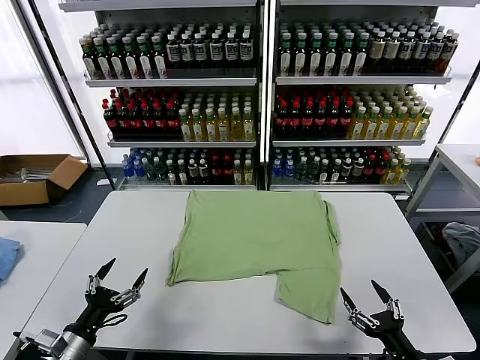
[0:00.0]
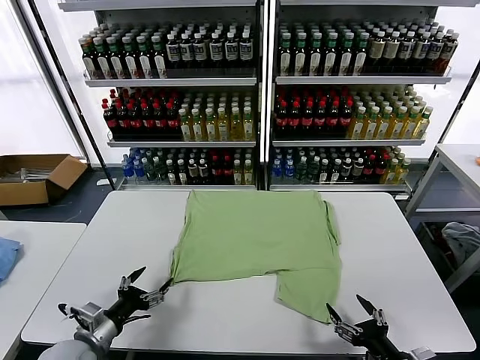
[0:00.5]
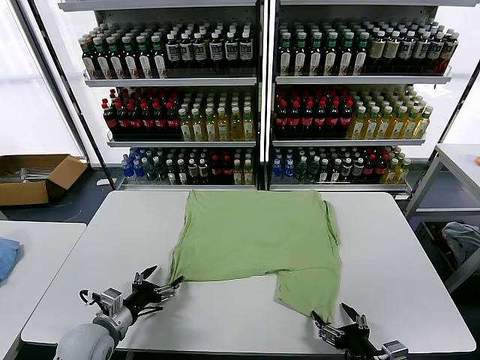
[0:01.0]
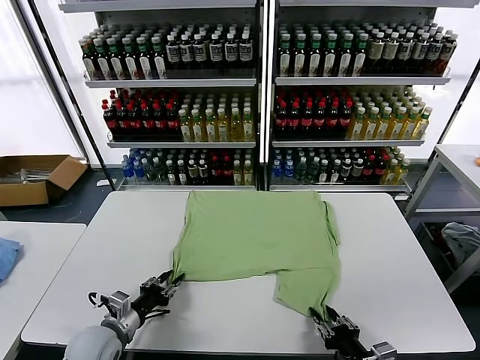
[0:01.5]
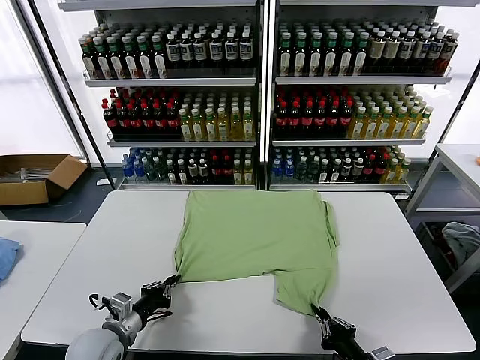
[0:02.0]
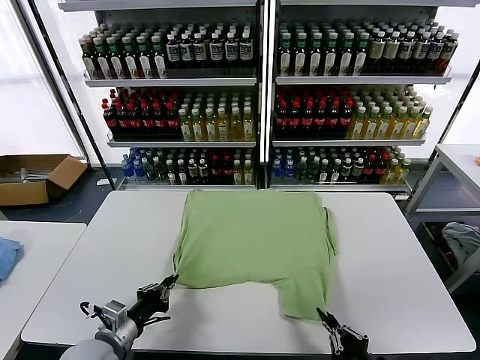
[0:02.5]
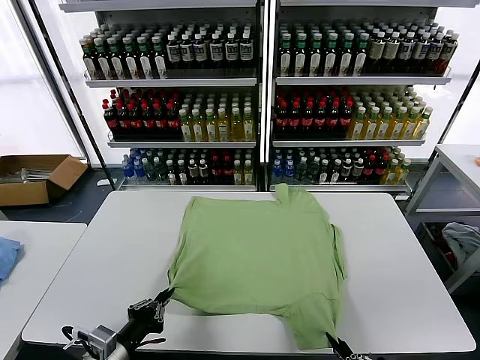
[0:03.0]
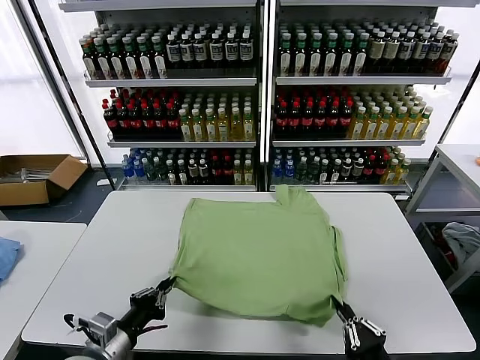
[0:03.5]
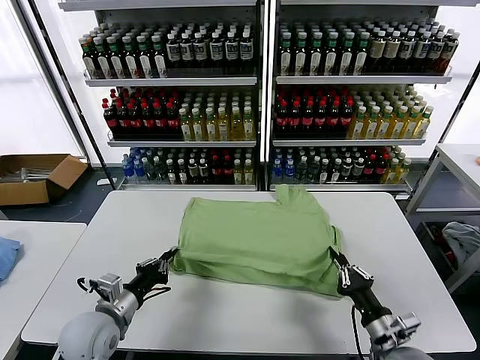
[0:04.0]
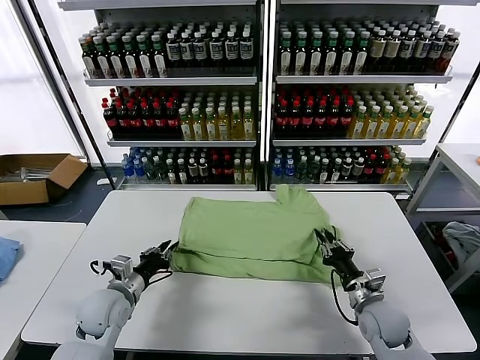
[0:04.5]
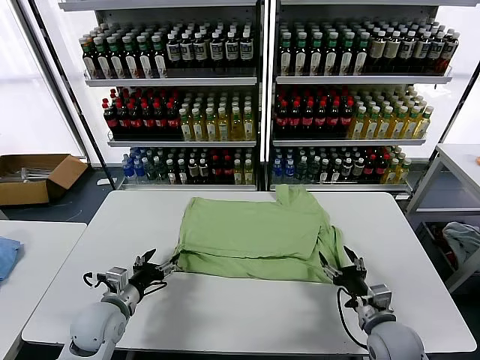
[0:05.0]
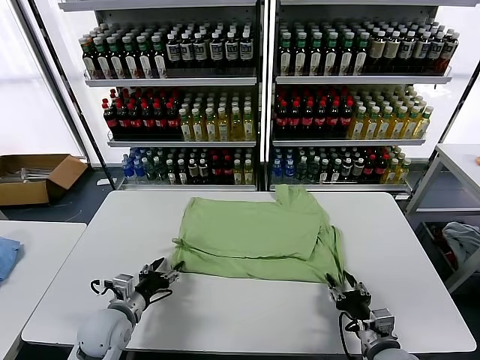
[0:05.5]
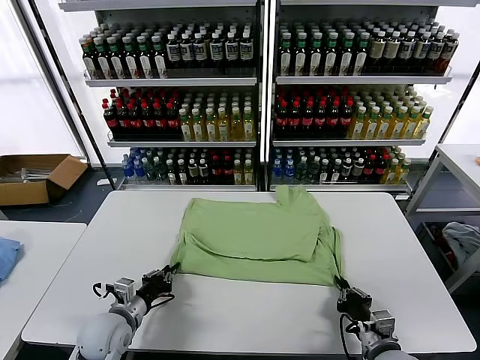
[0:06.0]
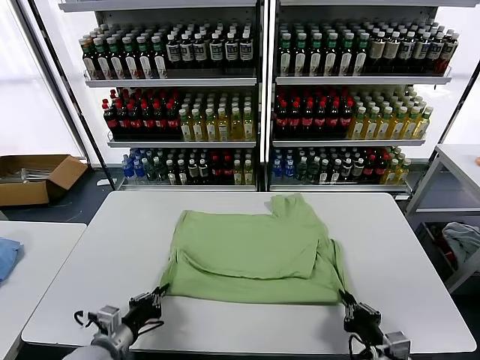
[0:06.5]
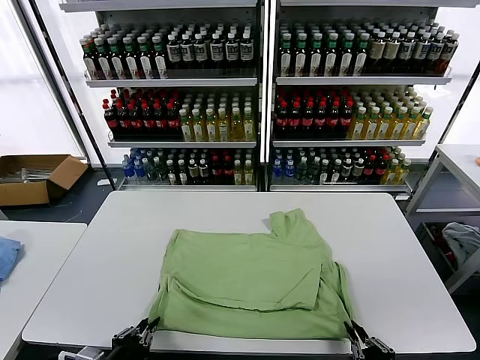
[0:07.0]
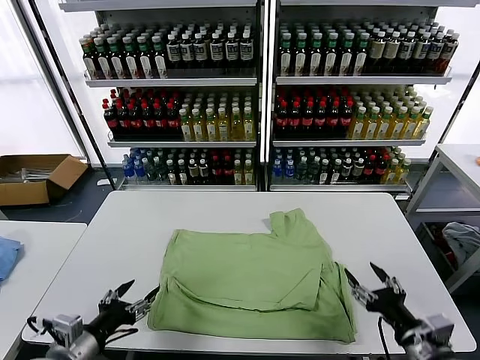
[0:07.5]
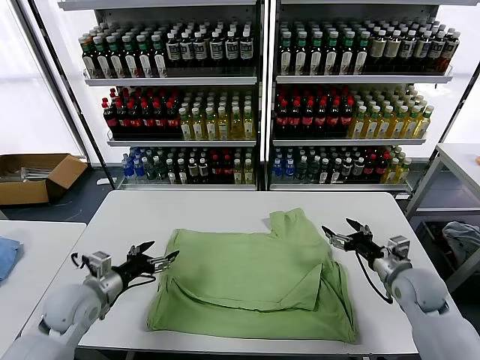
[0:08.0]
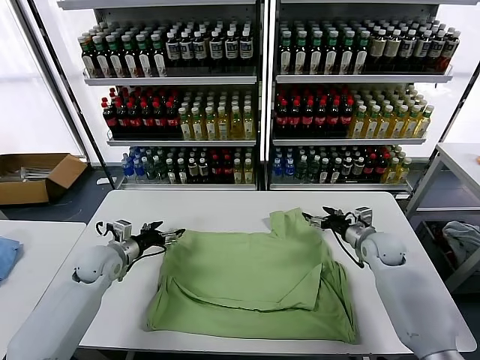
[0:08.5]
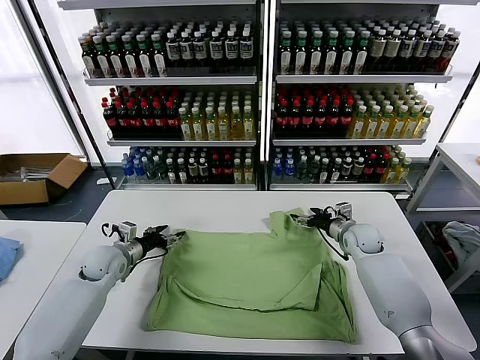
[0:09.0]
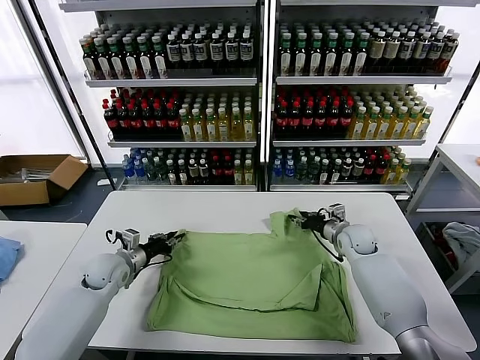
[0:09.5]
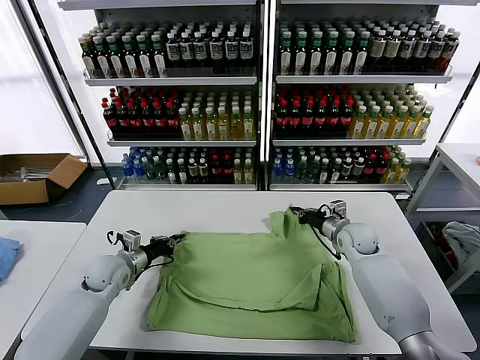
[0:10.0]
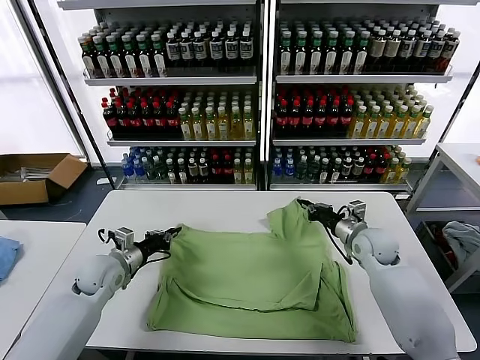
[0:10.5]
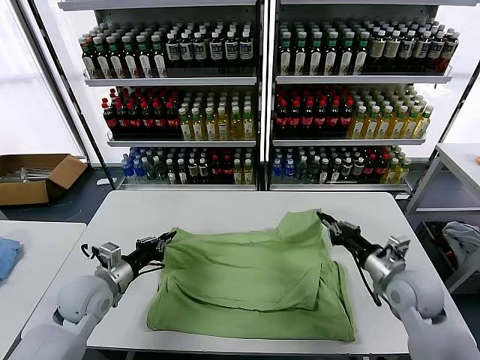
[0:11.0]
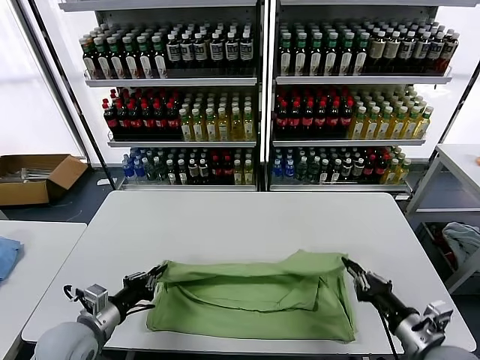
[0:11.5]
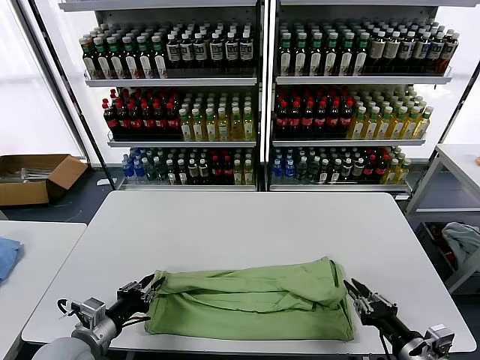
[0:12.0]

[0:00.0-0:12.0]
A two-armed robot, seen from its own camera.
Task of the whole recording: fold and organize the clothes.
Step, 0:00.0 to 0:01.5: use both grippers simultaneously to clamp the lower edge of the clothing fabric.
Step, 0:02.0 to 0:04.5: use both grippers to drag the lower edge of the fabric forward and fold it over the upper edge.
Step, 0:05.0 to 0:07.0: Drag the clothes downward with both gripper.
Step, 0:07.5 to 0:09.5: use both grippers simultaneously to clamp the upper edge of the clothing fabric.
0:02.0 to 0:04.0: The left gripper travels backward and back again, approximately 10 cm each way. The right gripper travels forward by about 10 cm.
0:04.0 to 0:06.0: The left gripper is displaced downward by about 5 cm, and opens, then closes again, while the right gripper opens and closes again.
0:06.0 to 0:08.0: The right gripper is displaced forward and to the right by roughly 20 cm, and opens; the left gripper moves upward and to the left, about 10 cm, goes backward and returns, approximately 15 cm each way, and opens.
0:08.0 to 0:10.0: The left gripper shifts approximately 10 cm forward and downward, and closes, while the right gripper moves forward and to the left, roughly 15 cm, and closes up.
0:10.0 to 0:12.0: The left gripper moves backward, about 20 cm, while the right gripper is displaced backward by roughly 35 cm.

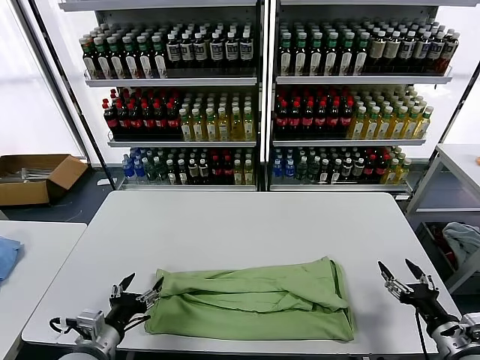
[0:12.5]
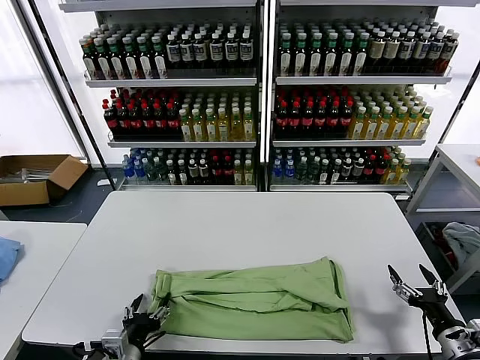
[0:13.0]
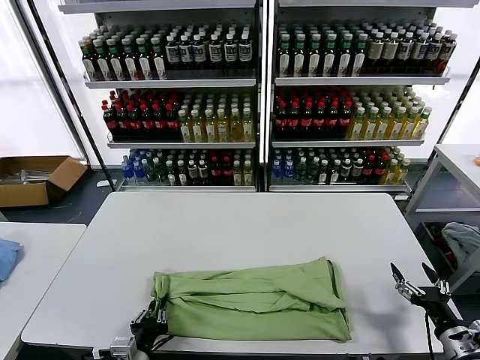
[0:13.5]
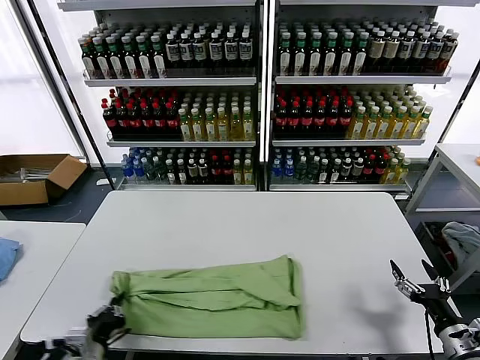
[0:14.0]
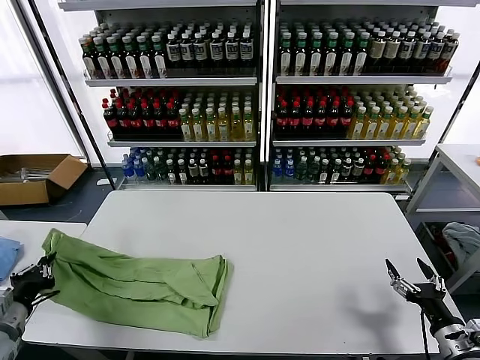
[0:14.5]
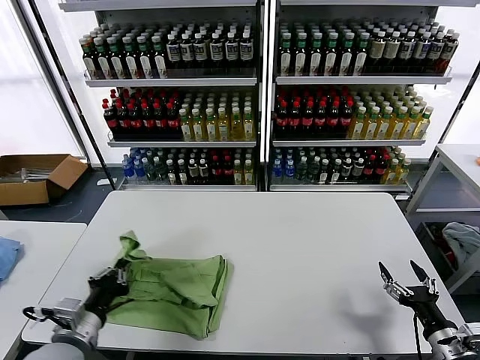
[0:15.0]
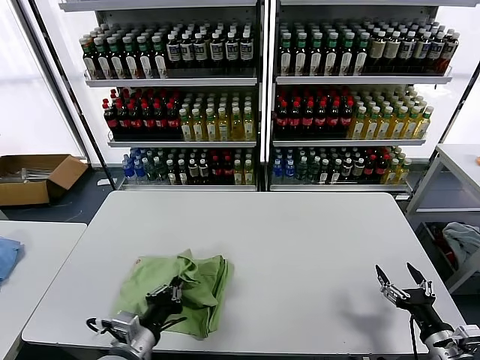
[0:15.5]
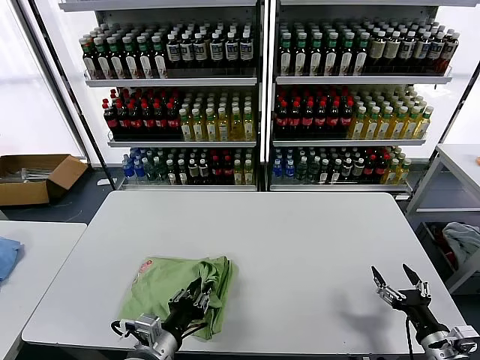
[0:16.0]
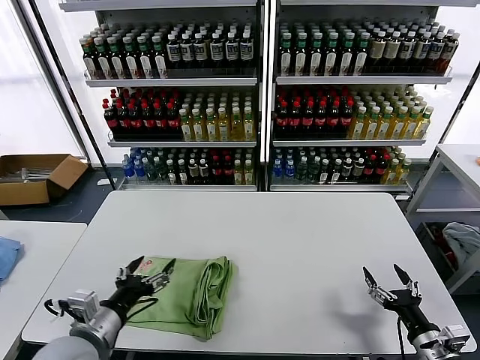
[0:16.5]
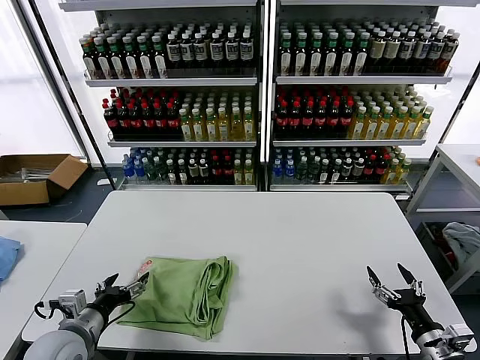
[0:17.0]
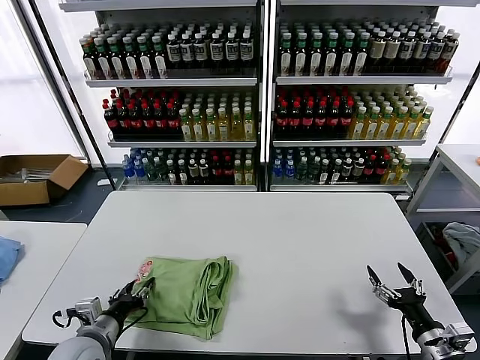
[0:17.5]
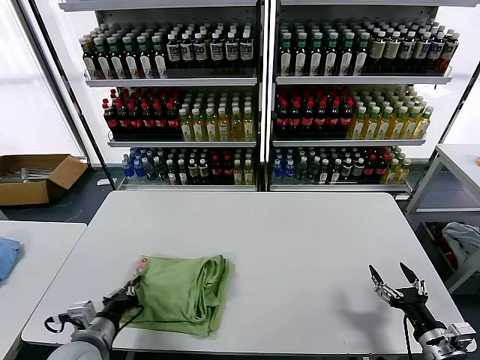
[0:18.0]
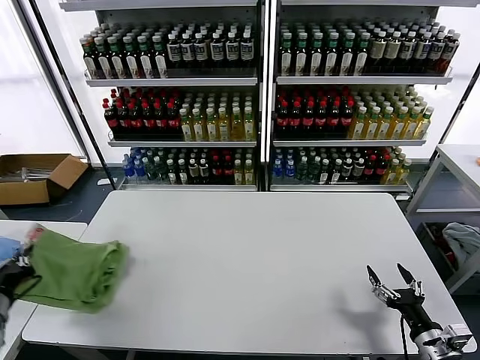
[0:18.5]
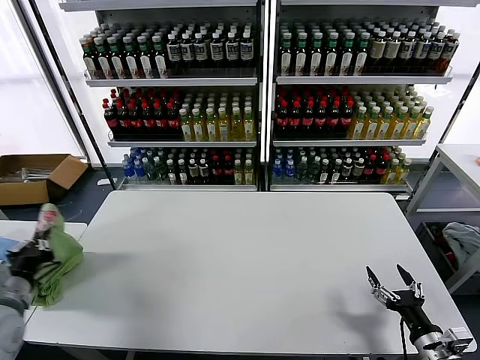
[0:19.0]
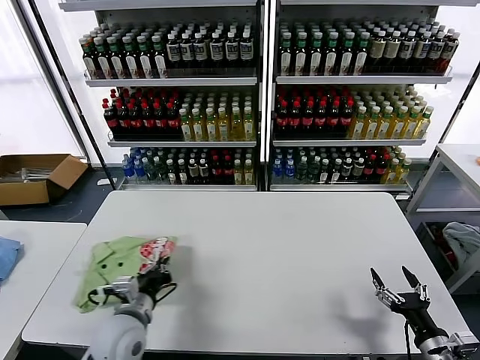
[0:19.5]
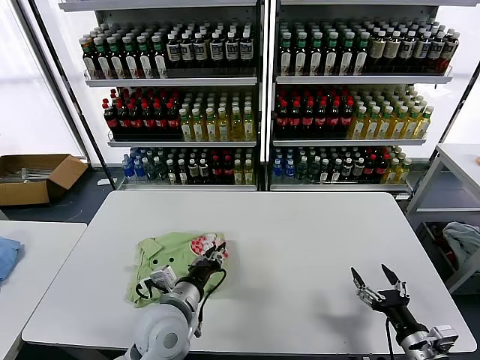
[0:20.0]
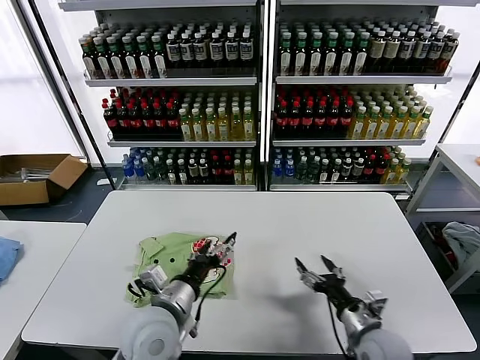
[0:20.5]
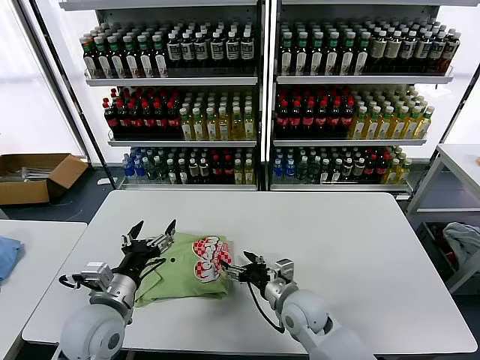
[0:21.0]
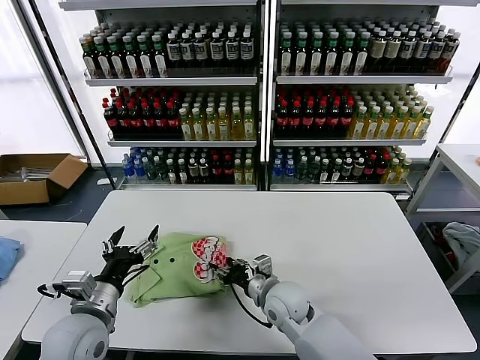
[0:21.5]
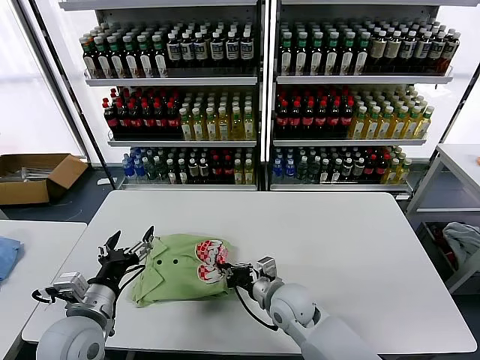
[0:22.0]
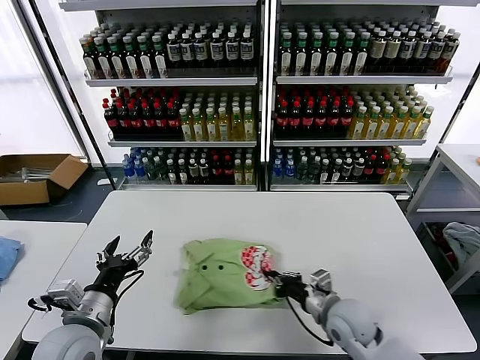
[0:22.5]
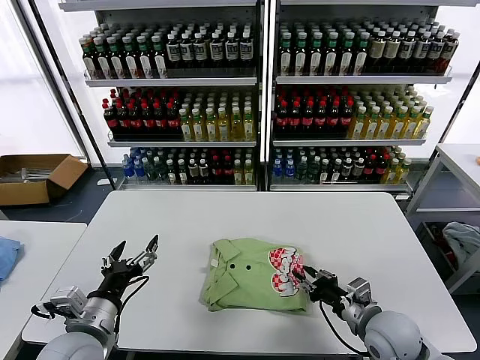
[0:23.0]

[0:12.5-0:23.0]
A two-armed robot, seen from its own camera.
Task of the whole recording: fold and organize the clothes.
Step, 0:12.5 to 0:13.5: use the left gripper to clamp the left edge of the fabric.
Step, 0:14.0 to 0:16.0: use the left gripper to drag the left edge of the fabric to the left and folds it over the right edge.
Step, 0:16.5 to 0:20.0: Flip the folded clothes over with left gripper.
0:12.5 to 0:14.5: The left gripper moves to the left, about 15 cm, and closes its fingers.
0:14.5 to 0:16.5: The left gripper is displaced to the right by some 20 cm, and opens its fingers.
0:16.5 to 0:19.0: The left gripper heads to the left, covering some 15 cm, and closes up.
0:19.0 to 0:21.0: The left gripper moves to the right, some 20 cm, and opens its fingers. The right gripper is displaced to the left and forward by about 30 cm.
0:21.0 to 0:23.0: The right gripper heads to the right and backward, covering approximately 15 cm, and closes. The left gripper goes approximately 5 cm backward.

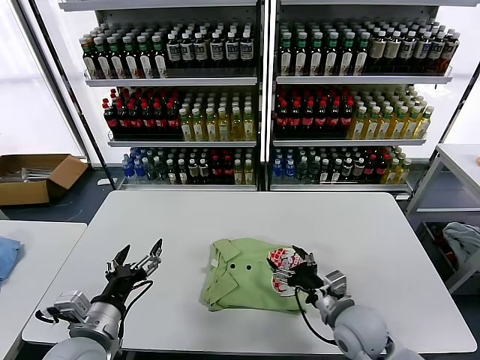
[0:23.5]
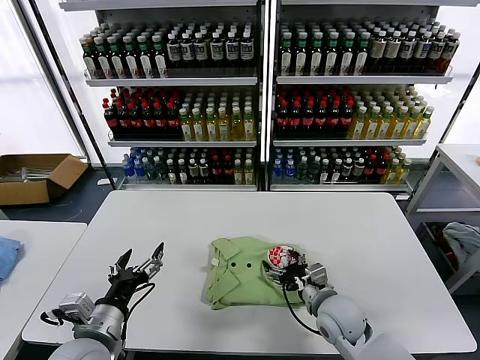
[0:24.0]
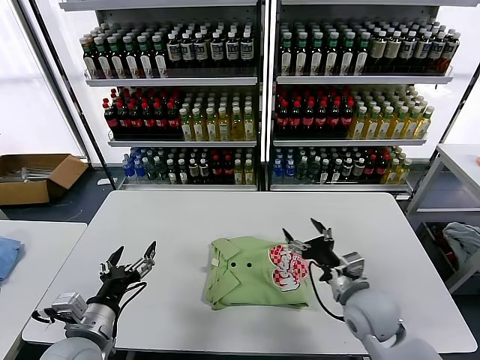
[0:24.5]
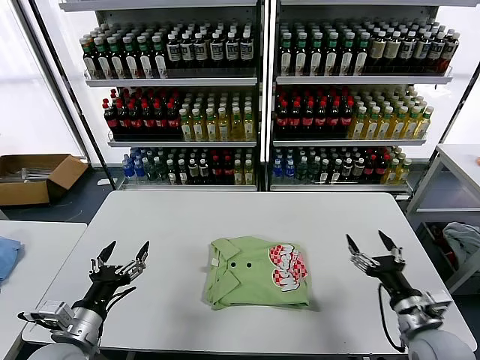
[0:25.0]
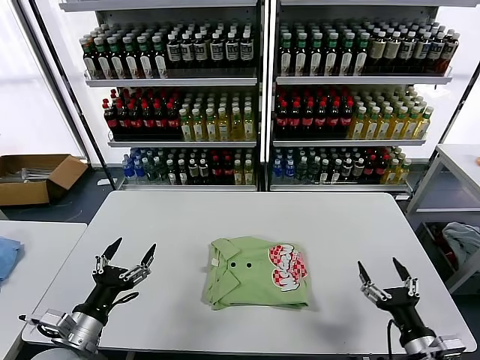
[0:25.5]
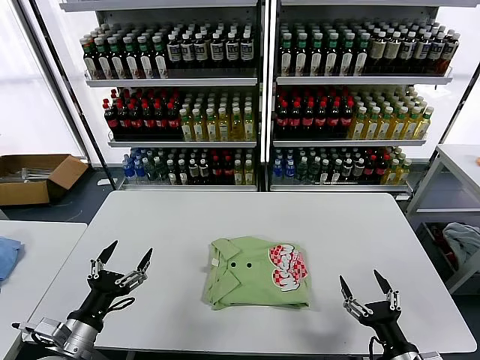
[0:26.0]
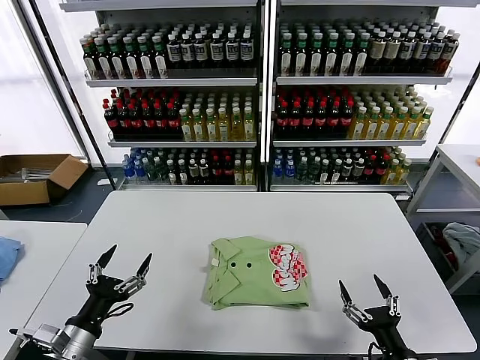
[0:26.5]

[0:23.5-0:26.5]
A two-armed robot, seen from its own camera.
Task of the whole recording: fold and organize the clothes.
0:23.5 to 0:25.0: The left gripper shifts by some 5 cm. The right gripper travels to the right by roughly 10 cm.
0:25.0 to 0:26.5: The right gripper travels backward and downward by about 10 cm.
